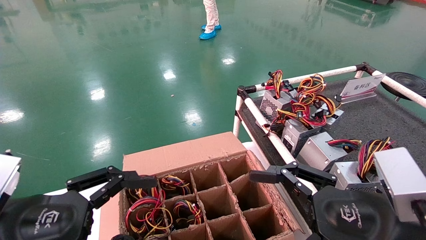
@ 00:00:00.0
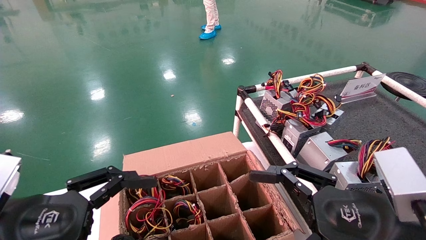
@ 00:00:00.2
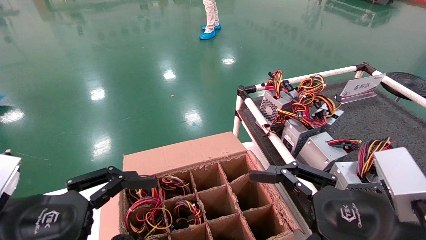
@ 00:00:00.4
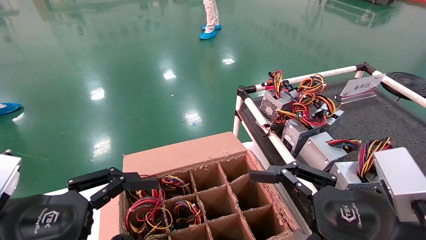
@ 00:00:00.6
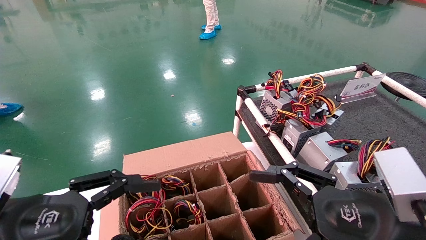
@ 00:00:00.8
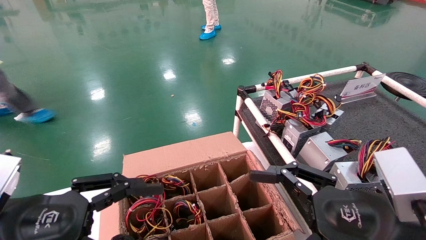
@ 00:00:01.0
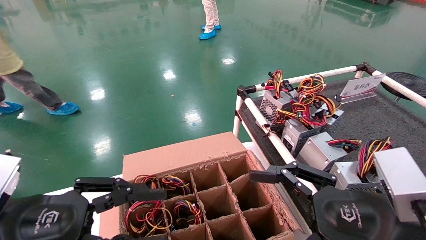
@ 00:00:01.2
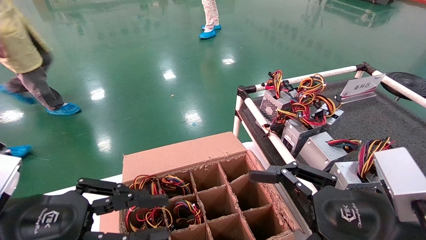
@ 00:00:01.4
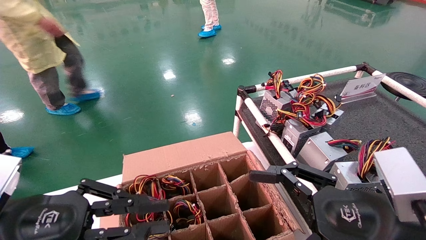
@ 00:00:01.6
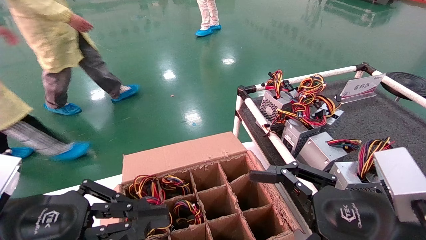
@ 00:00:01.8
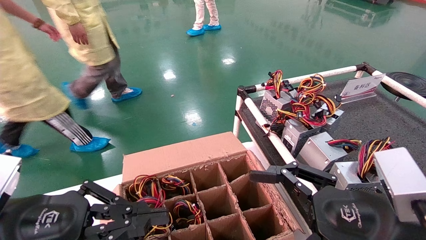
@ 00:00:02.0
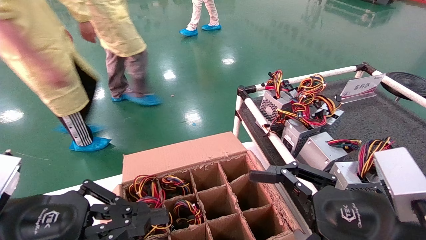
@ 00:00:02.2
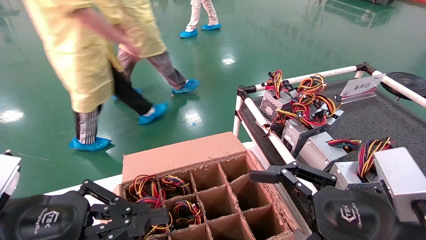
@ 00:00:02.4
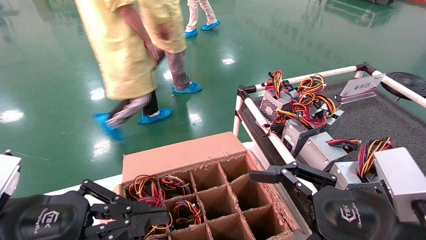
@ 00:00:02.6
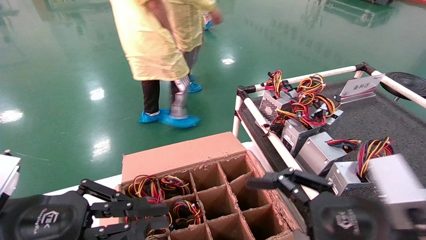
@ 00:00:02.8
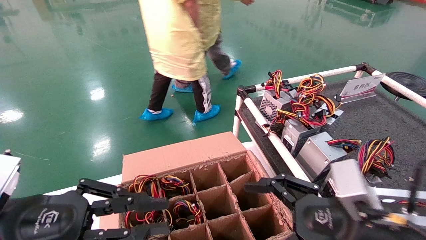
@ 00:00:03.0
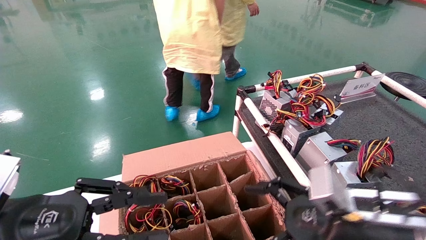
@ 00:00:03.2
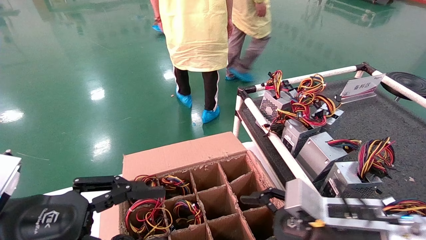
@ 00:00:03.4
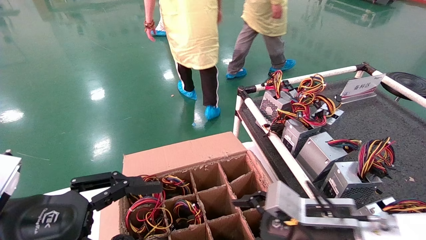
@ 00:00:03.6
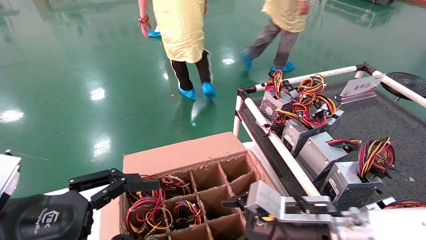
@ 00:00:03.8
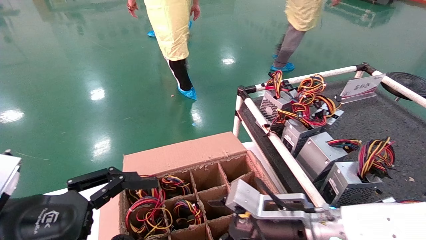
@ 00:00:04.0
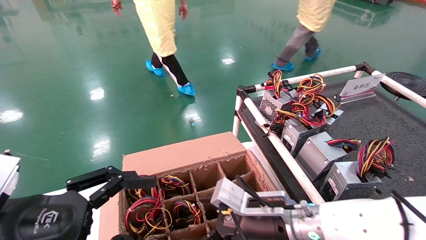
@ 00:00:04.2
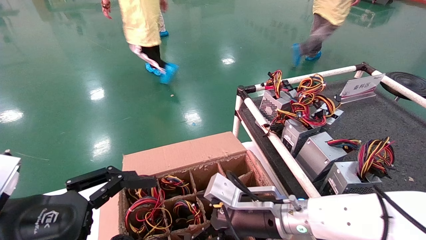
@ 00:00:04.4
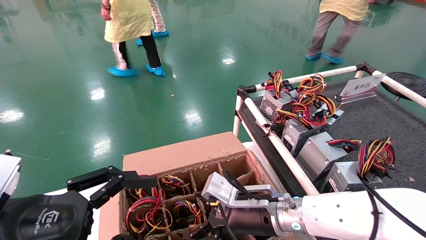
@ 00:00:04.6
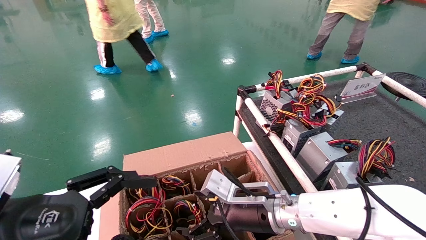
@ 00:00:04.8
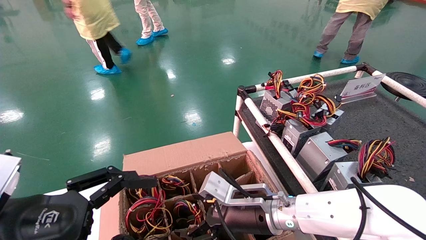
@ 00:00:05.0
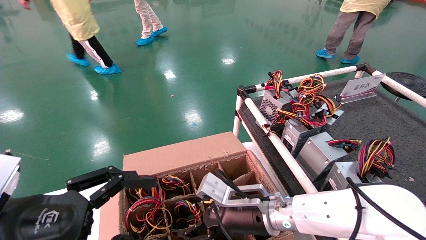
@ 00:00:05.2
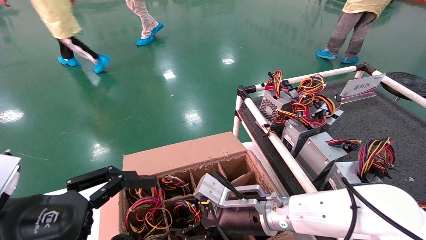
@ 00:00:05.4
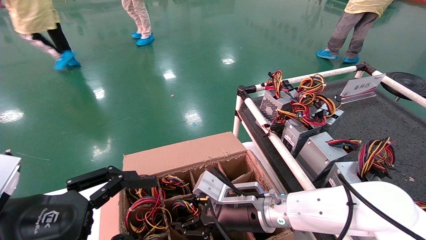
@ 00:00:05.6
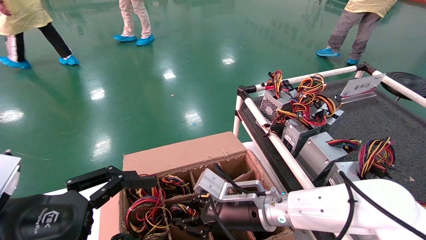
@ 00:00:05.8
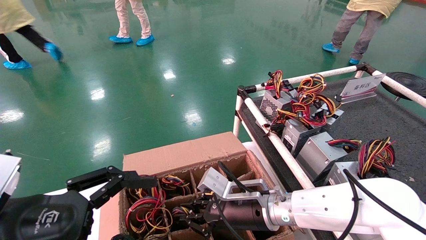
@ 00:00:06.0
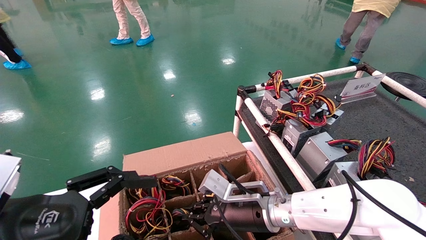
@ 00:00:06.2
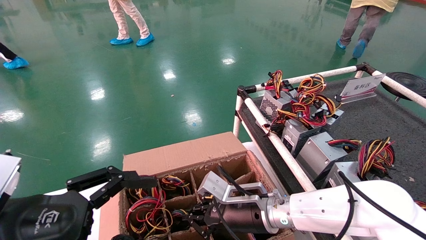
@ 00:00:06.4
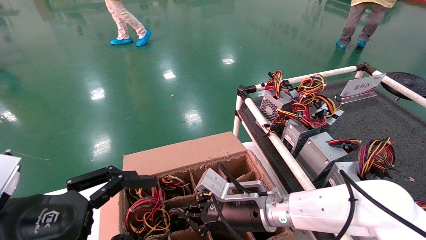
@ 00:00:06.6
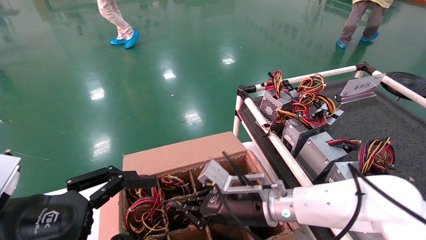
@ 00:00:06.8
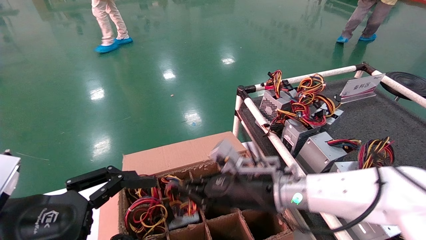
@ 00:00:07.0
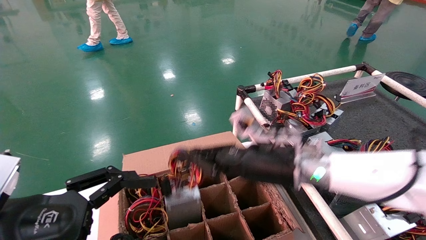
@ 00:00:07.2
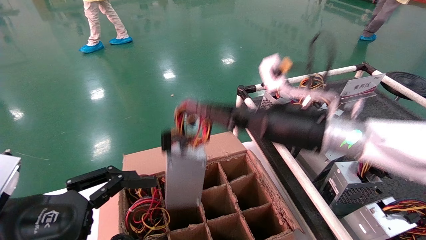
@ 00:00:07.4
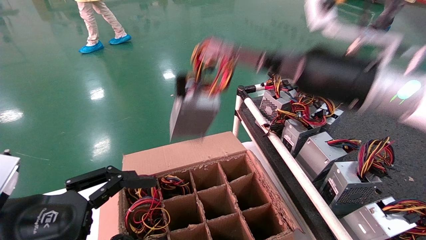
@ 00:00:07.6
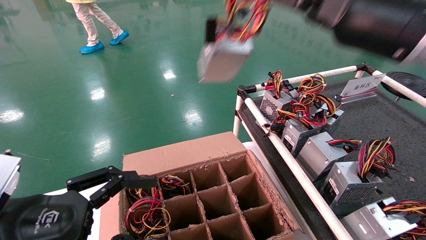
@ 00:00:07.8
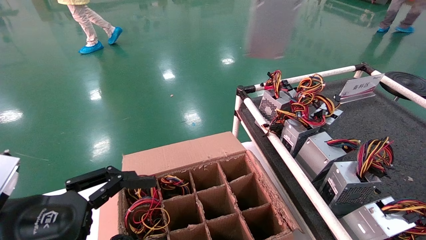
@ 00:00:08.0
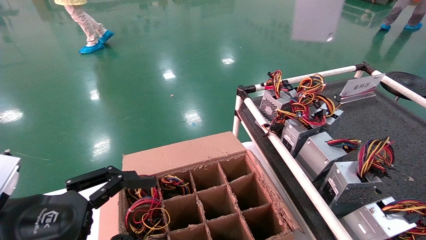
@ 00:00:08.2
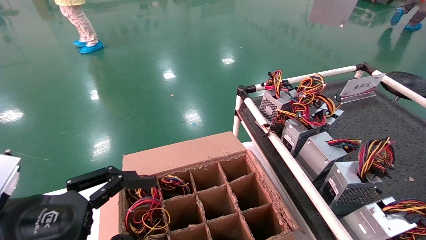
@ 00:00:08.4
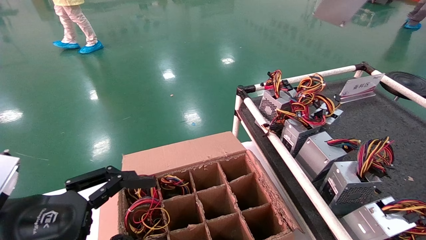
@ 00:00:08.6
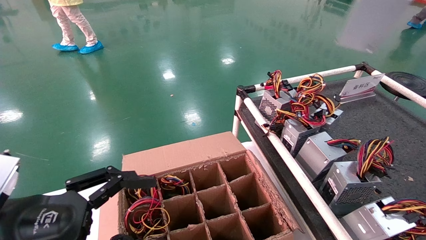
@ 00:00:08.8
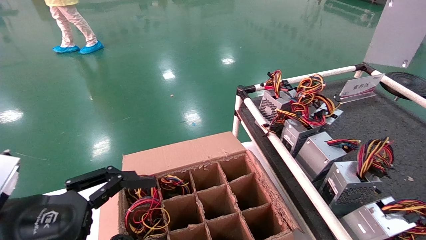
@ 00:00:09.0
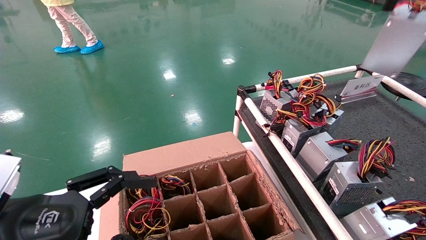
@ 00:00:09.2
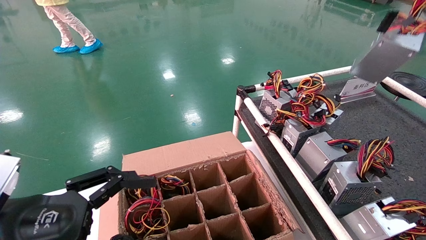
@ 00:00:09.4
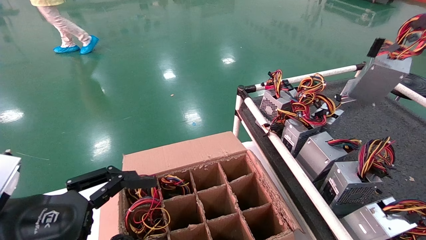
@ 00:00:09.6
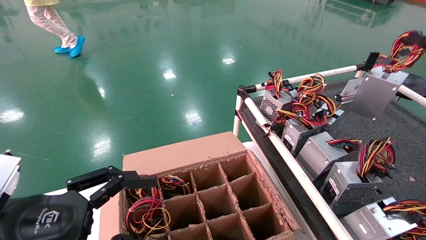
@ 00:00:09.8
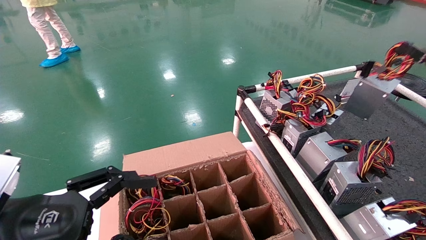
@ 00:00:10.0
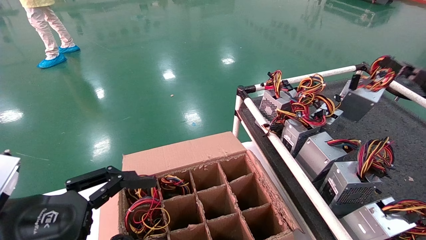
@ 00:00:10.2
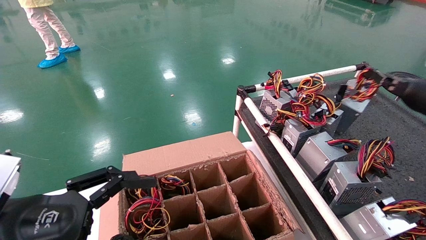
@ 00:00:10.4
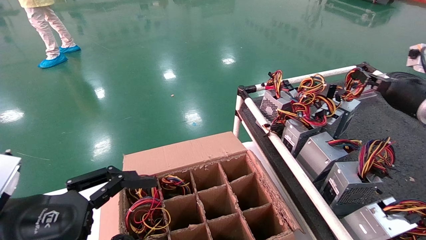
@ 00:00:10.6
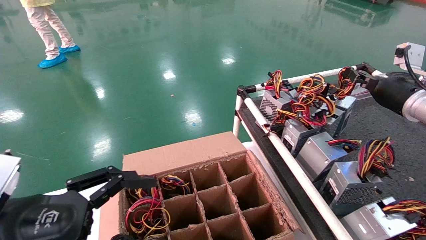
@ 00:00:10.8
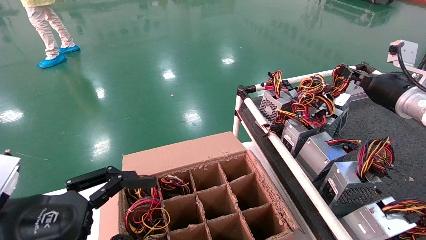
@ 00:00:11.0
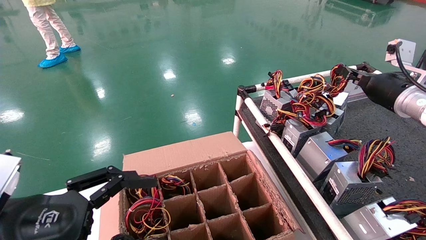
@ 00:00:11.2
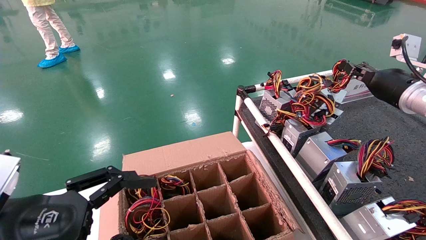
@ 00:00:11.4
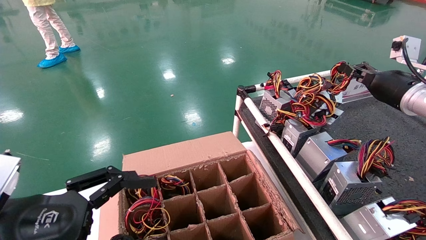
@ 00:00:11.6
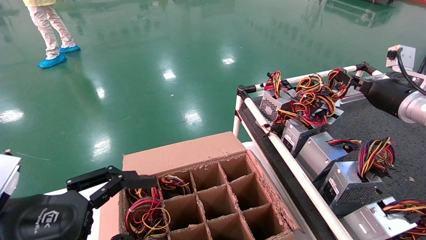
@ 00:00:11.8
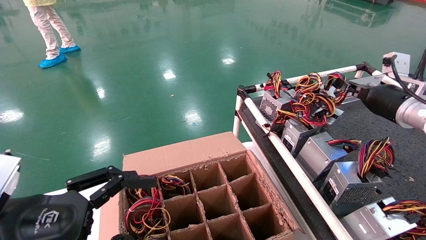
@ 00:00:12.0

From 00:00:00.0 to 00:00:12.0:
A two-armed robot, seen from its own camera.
Step, from 00:00:03.2 to 00:00:06.4: Grab and lift the power supply from the large box.
From 00:00:00.0 to 00:00:01.6: The left gripper closes.
From 00:00:03.0 to 00:00:04.4: The left gripper opens. Meanwhile the right gripper is displaced to the left, forward and downward by about 20 cm.
From 00:00:04.4 to 00:00:06.0: The right gripper closes its fingers.
From 00:00:06.0 to 00:00:07.6: The right gripper heads upward and to the right, covering approximately 25 cm.
From 00:00:07.6 to 00:00:09.0: The right gripper heads to the right, covering approximately 25 cm.
From 00:00:09.0 to 00:00:10.4: The right gripper goes approximately 20 cm forward and downward.
From 00:00:10.4 to 00:00:12.0: The right gripper ends up approximately 5 cm from where it was.

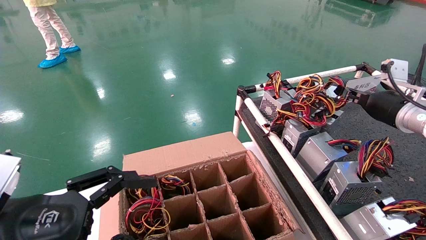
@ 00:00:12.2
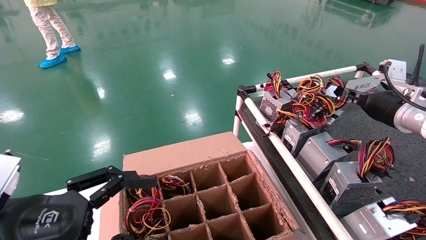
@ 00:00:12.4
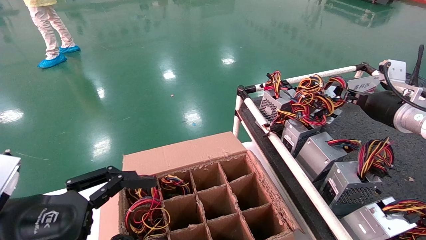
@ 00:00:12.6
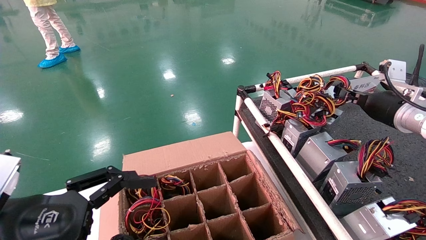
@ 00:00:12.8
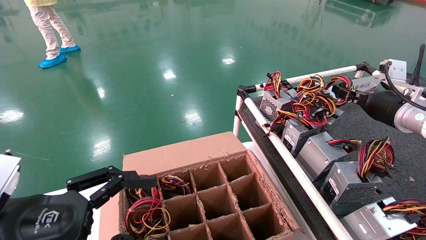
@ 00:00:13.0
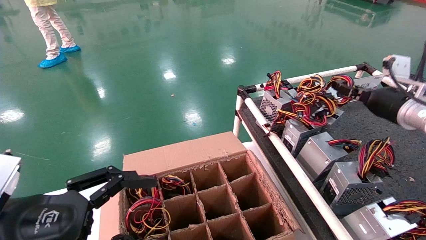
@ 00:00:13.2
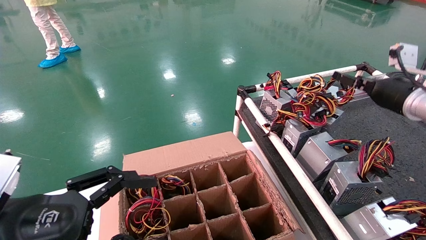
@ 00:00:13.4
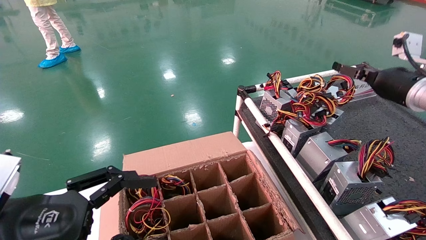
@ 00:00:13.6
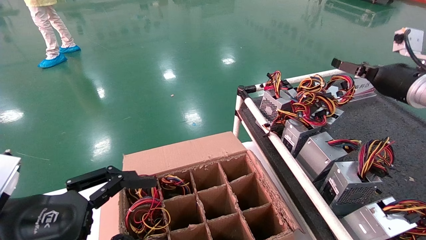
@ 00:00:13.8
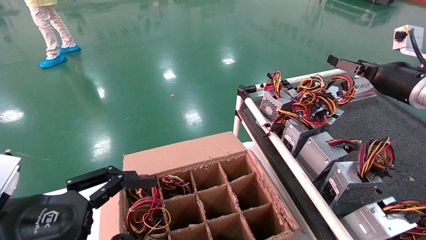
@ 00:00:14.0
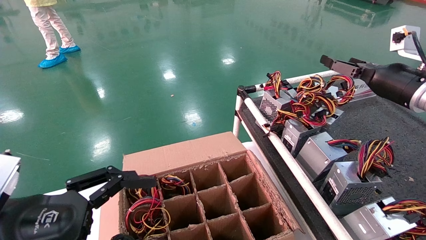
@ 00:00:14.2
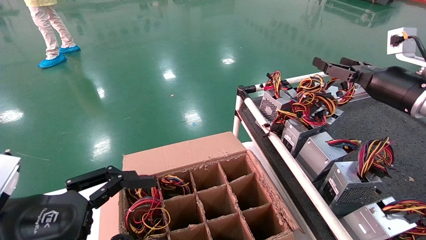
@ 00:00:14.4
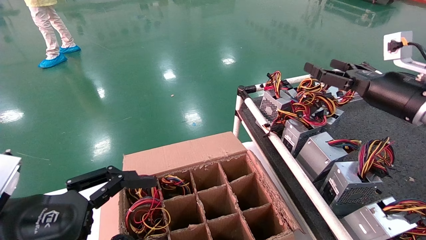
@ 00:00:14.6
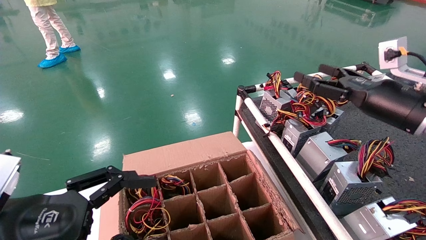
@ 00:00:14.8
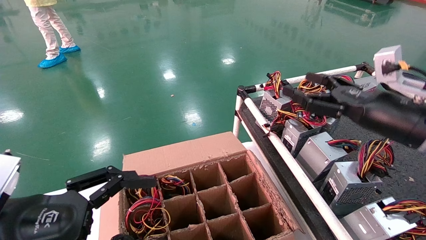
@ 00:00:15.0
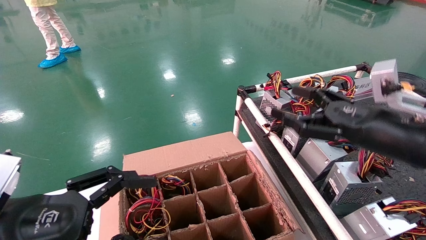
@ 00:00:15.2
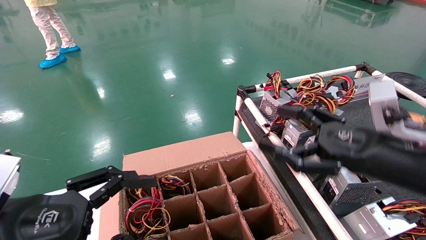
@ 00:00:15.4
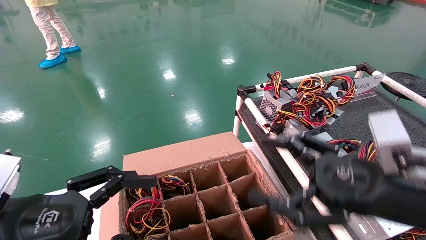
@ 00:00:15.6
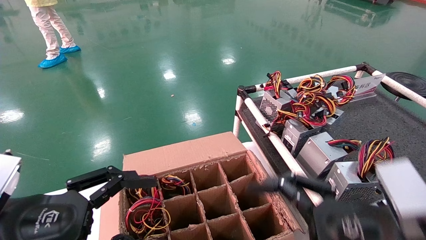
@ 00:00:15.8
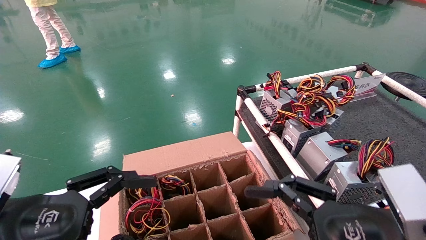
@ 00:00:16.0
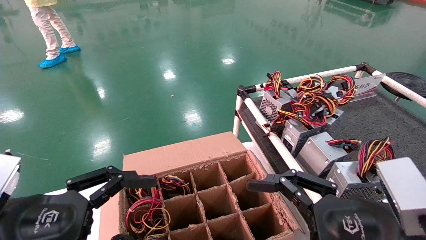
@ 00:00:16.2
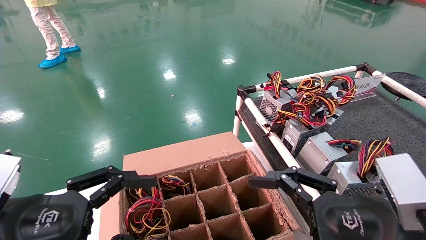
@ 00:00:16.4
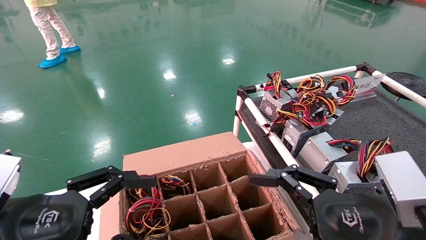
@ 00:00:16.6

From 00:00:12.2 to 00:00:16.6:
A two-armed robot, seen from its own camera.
From 00:00:12.2 to 00:00:13.6: The right gripper opens.
From 00:00:13.6 to 00:00:15.2: The right gripper moves backward, to the left and downward, some 20 cm.
From 00:00:15.2 to 00:00:16.6: The right gripper travels backward, downward and to the left by some 15 cm.
